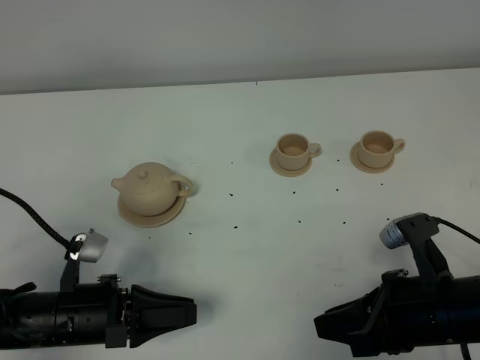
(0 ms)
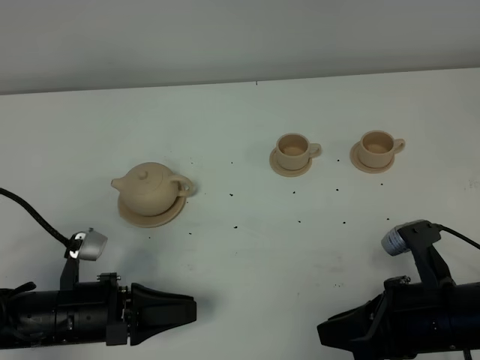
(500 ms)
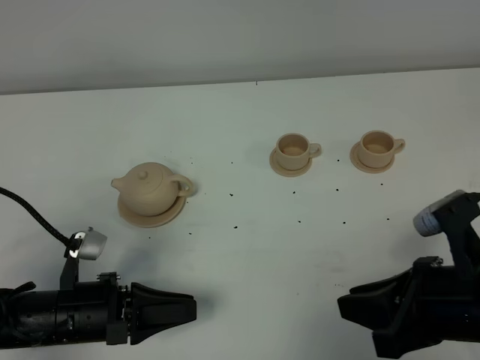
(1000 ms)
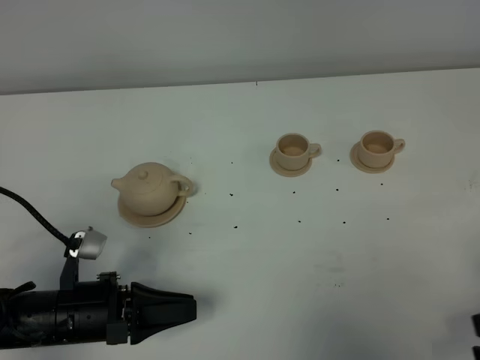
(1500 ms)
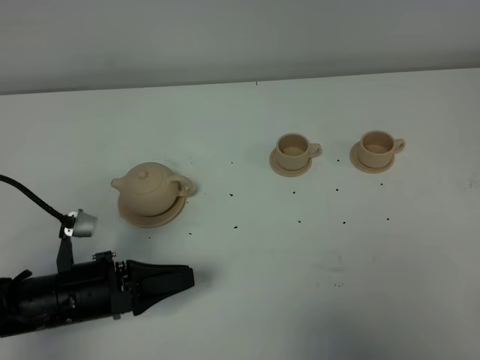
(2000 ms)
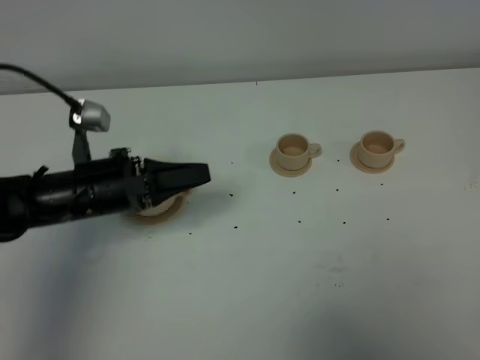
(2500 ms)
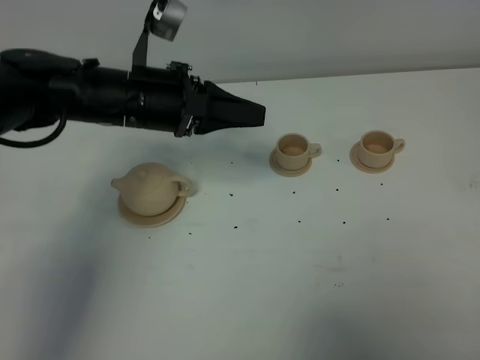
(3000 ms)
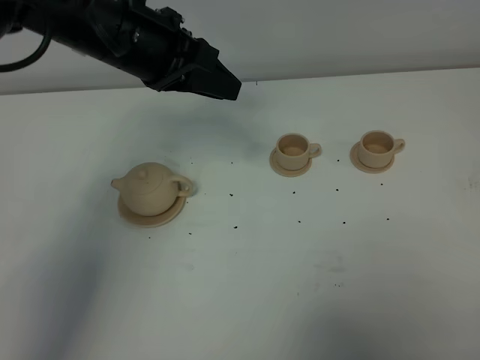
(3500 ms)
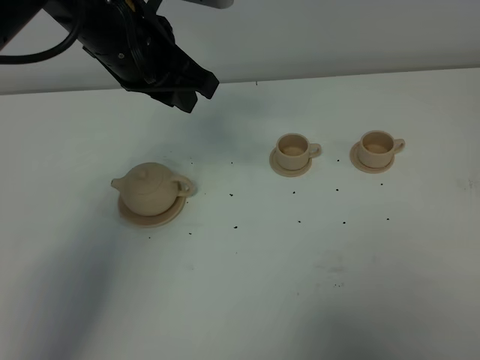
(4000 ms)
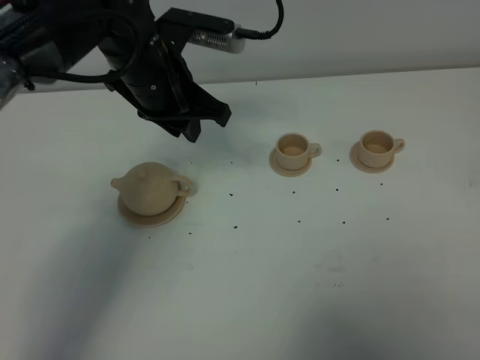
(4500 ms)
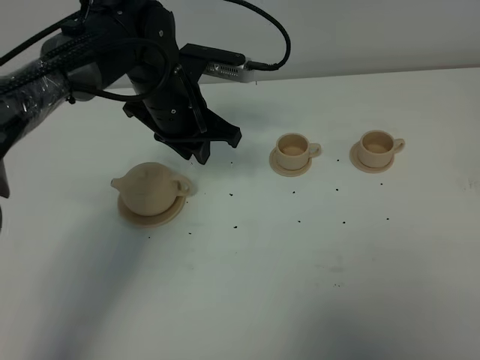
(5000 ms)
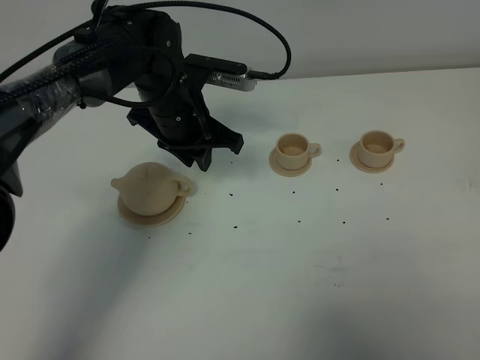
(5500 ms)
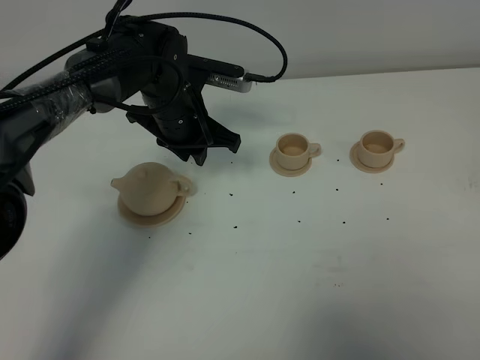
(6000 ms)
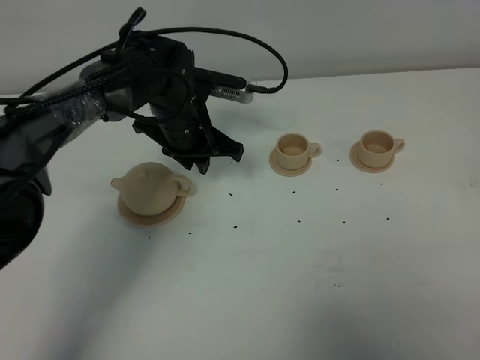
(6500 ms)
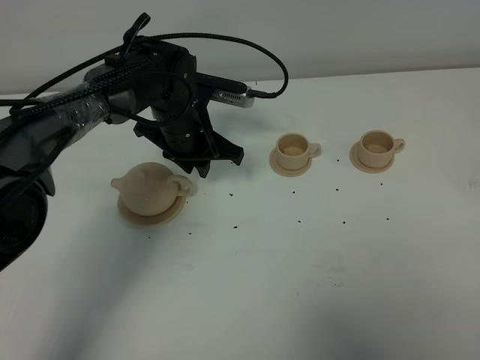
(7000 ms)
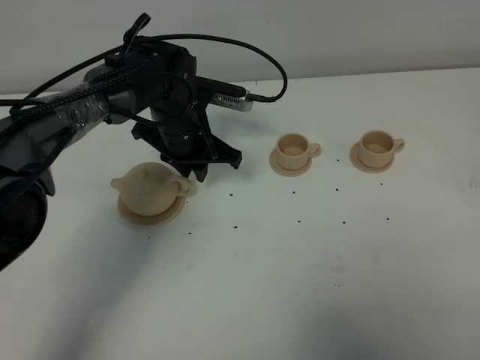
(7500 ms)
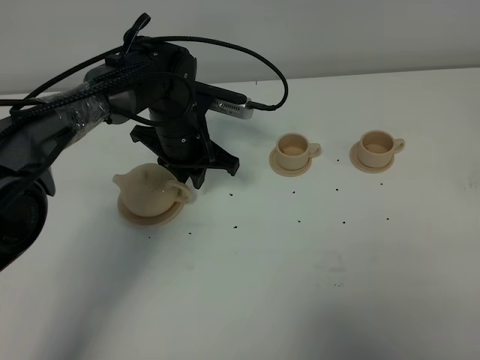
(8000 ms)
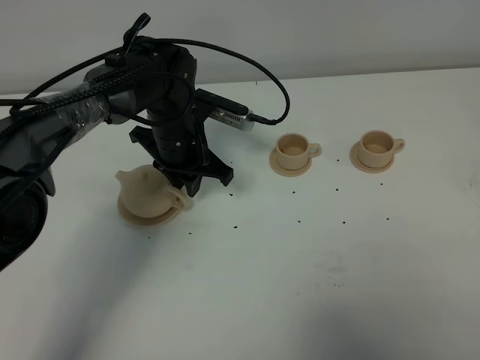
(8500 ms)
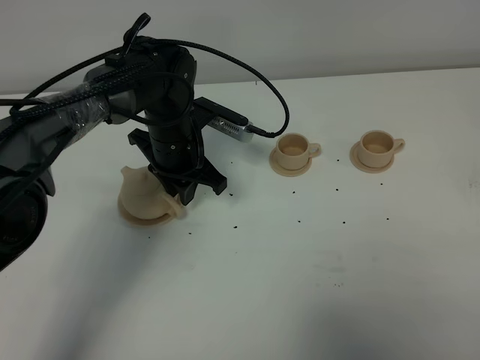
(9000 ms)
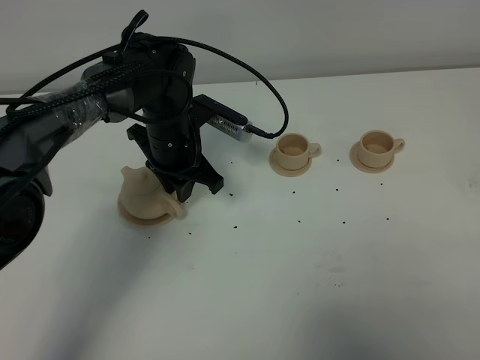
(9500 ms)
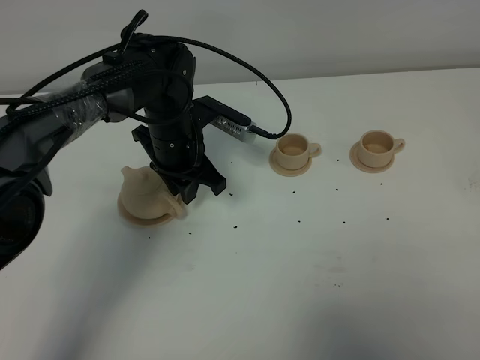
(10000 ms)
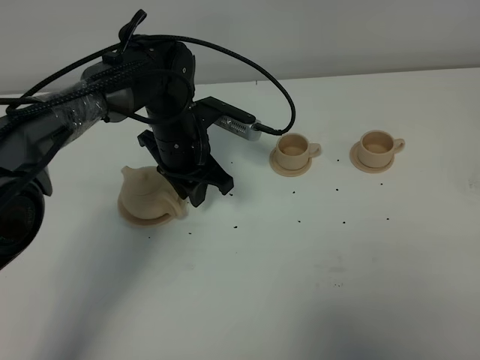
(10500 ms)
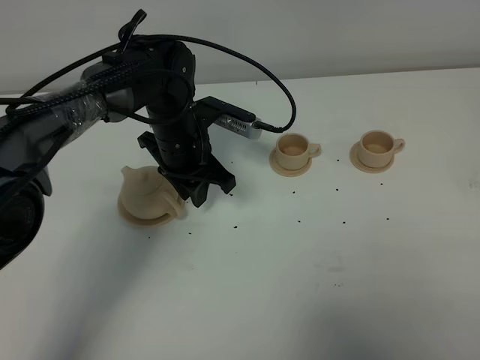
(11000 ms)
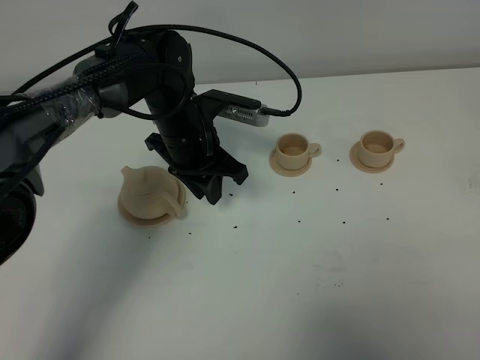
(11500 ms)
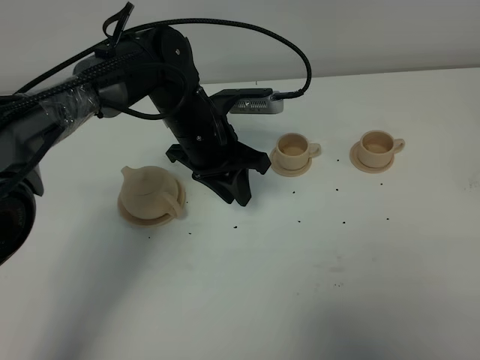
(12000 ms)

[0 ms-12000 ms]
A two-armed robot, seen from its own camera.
Task of the whole recording: grasp the brown teapot and pour the tea into the two brown teacups one by one, put the brown teapot back in its original place.
0 ms to 2000 ms: The right gripper shifts approximately 20 cm to the right, upward and backward.
2000 ms to 4000 ms: The left gripper is displaced upward, forward and to the right by approximately 30 cm; the right gripper heads backward, covering about 5 cm.
4000 ms to 6000 ms: The left gripper travels downward and forward by roughly 15 cm.
6000 ms to 8000 ms: The grippers move only a little.
8000 ms to 10000 ms: The grippers move only a little.

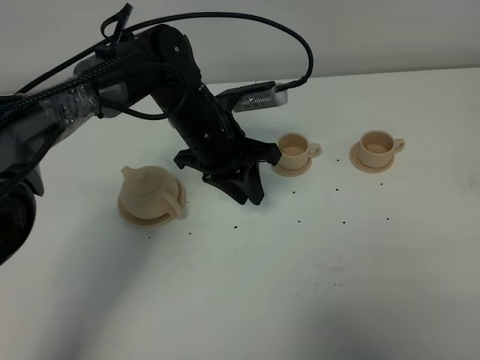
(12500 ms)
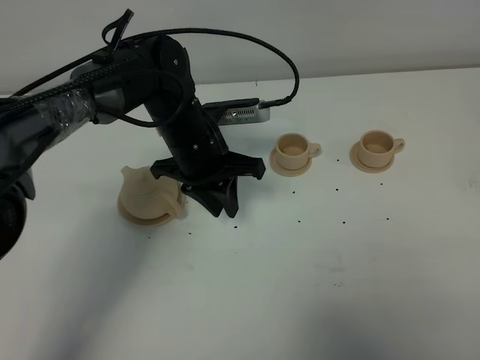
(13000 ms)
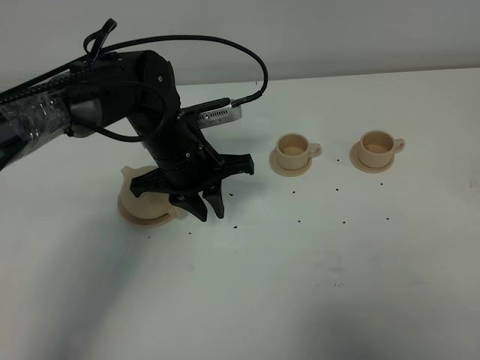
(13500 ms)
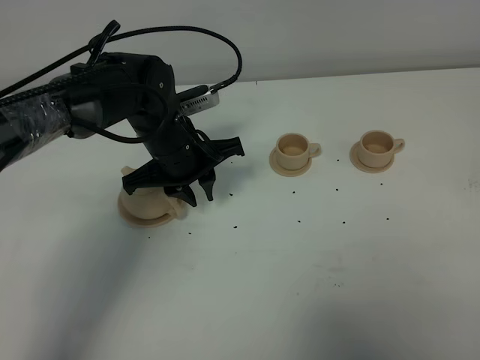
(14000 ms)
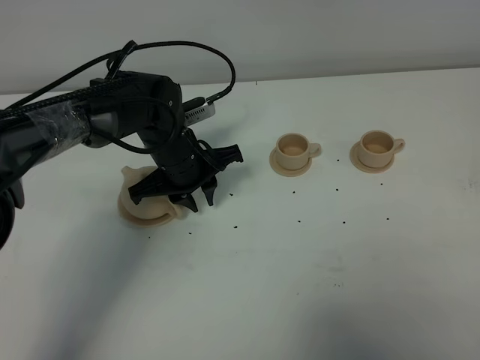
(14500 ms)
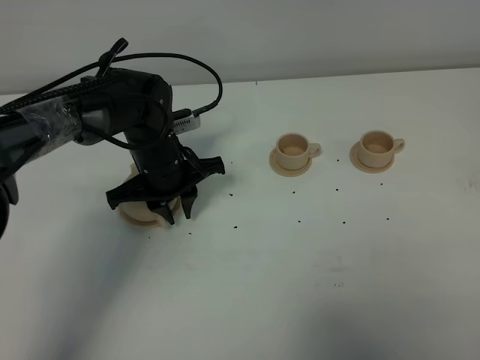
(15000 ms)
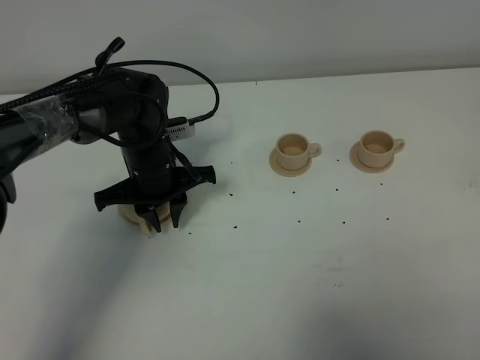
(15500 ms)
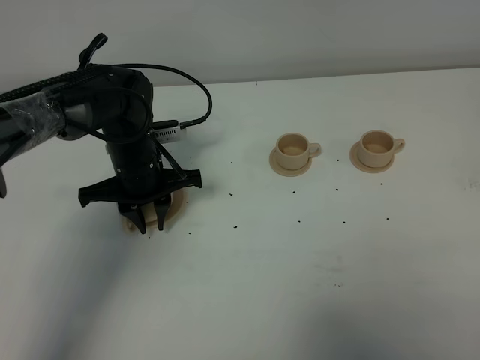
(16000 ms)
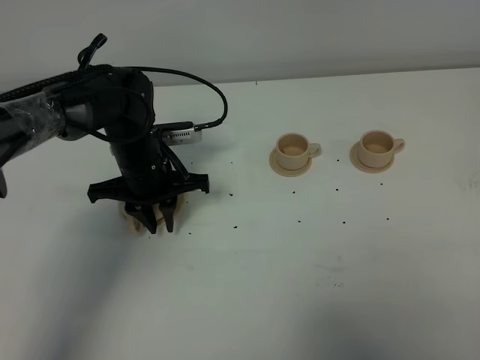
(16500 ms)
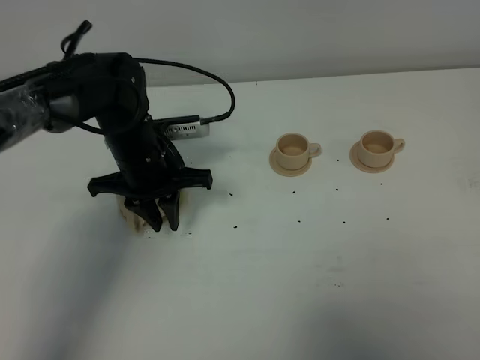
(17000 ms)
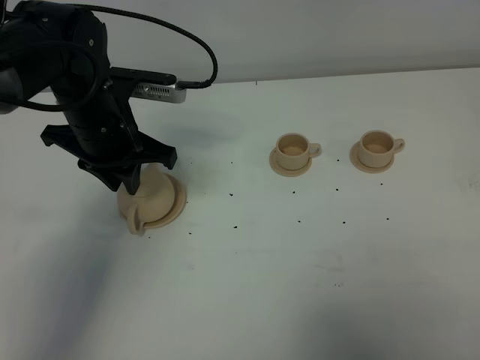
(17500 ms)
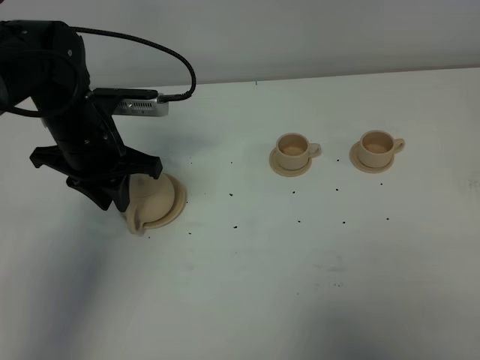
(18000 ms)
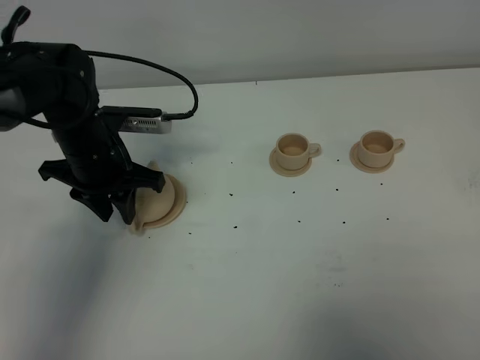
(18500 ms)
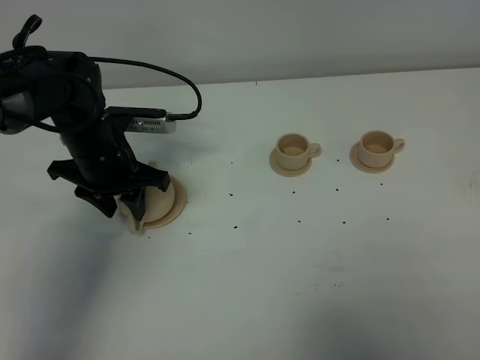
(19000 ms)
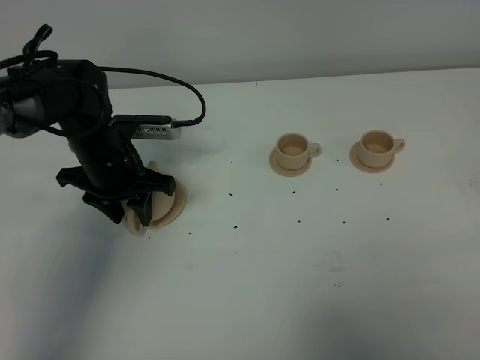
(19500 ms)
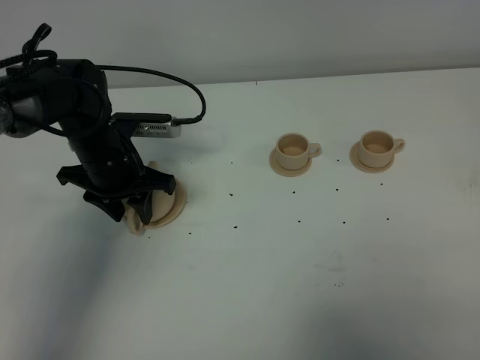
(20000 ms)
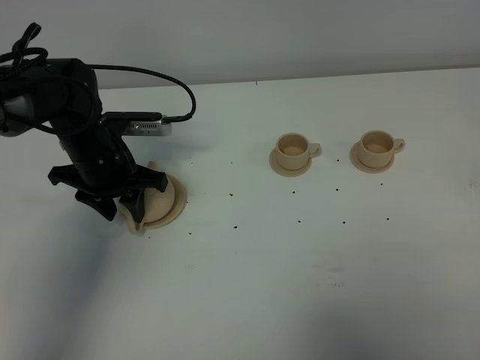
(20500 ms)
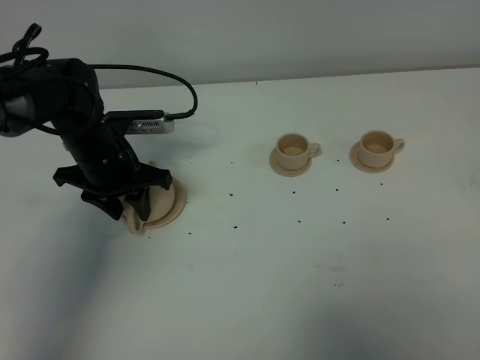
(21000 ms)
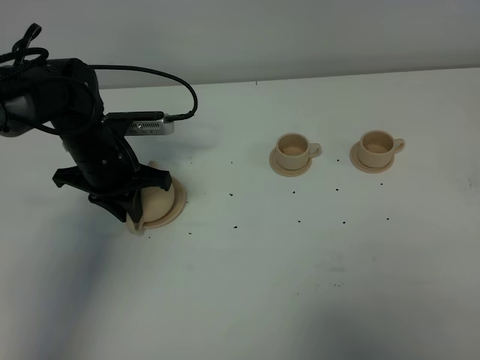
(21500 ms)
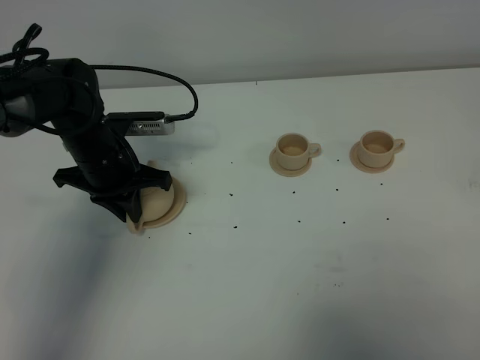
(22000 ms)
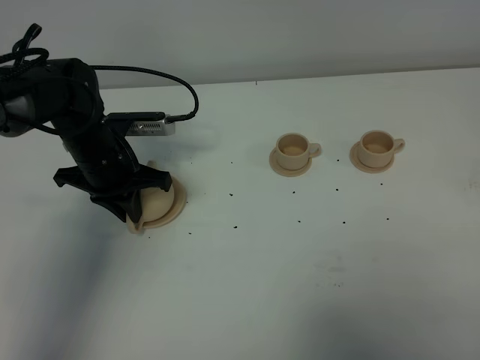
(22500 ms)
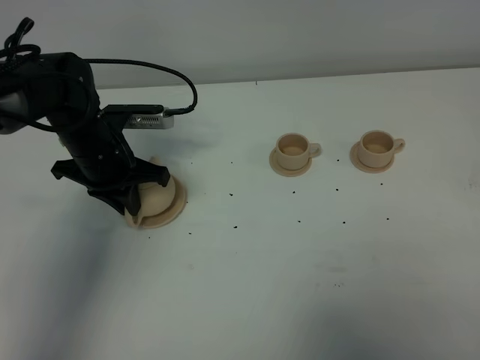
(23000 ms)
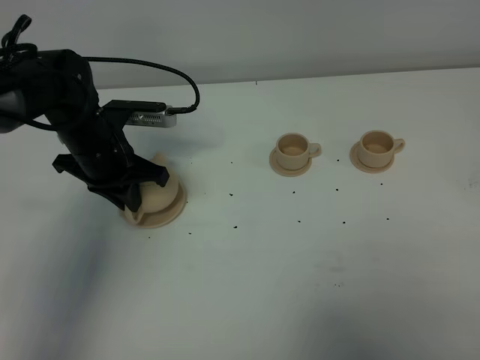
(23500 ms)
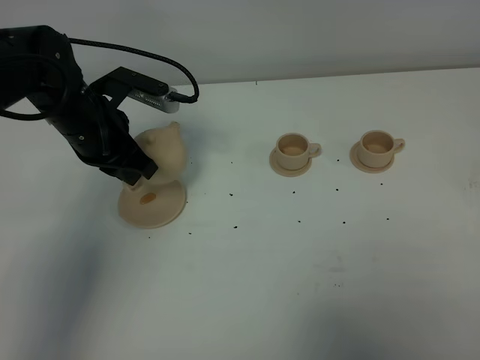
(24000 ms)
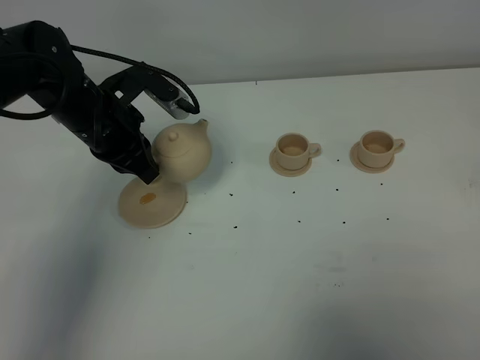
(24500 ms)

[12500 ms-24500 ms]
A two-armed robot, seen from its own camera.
Task of the whole recording: grasp the brown teapot and pour the tea into the two brown teacups one by one, put the brown teapot back in its original place.
Step, 12500 ms to 23000 ms: Pick up the teapot with the left gripper.
12500 ms to 14500 ms: The left gripper ends up approximately 5 cm from where it was.
16500 ms to 18500 ms: The left gripper opens its fingers.
18500 ms to 20500 ms: There are only small adjustments of the grippers.
20500 ms to 22500 ms: The left gripper closes its fingers.
22500 ms to 24500 ms: The left gripper travels upward by some 5 cm.

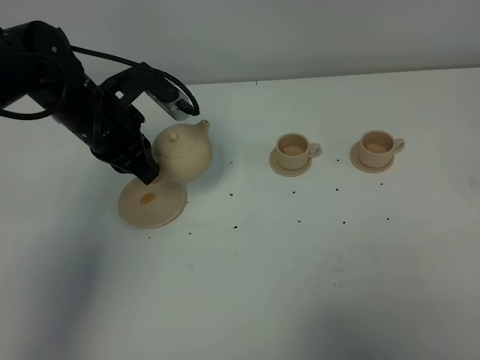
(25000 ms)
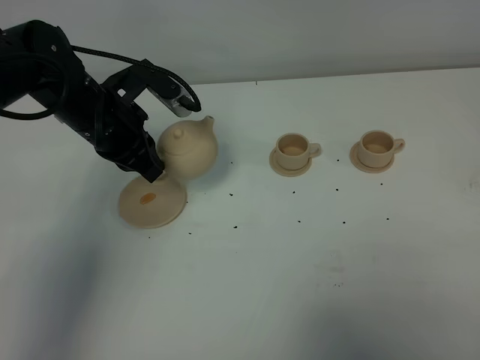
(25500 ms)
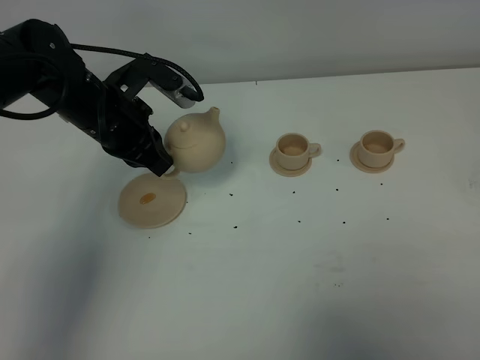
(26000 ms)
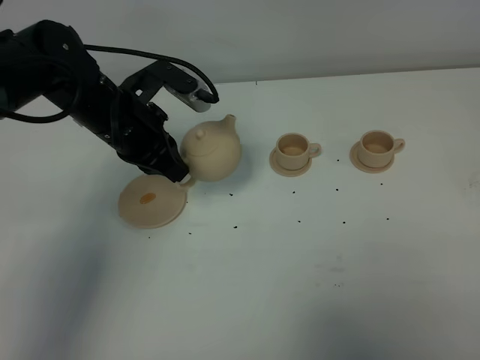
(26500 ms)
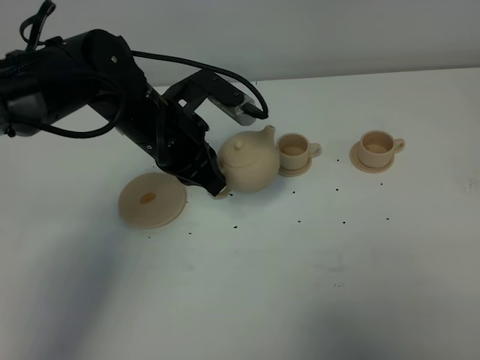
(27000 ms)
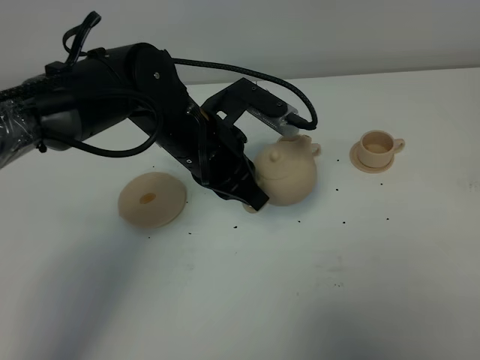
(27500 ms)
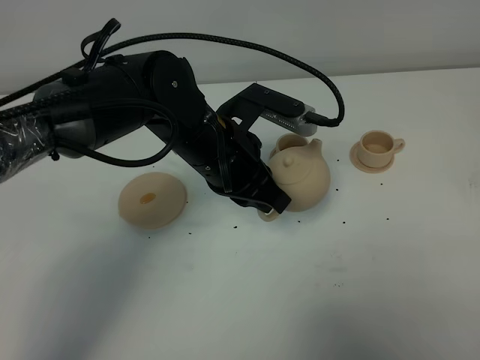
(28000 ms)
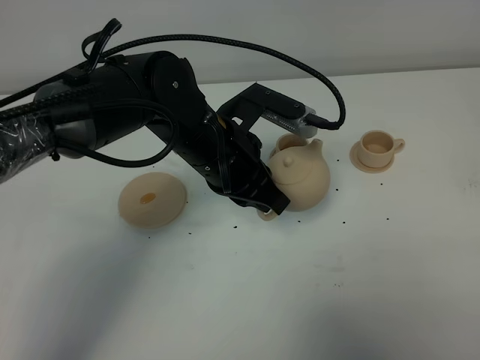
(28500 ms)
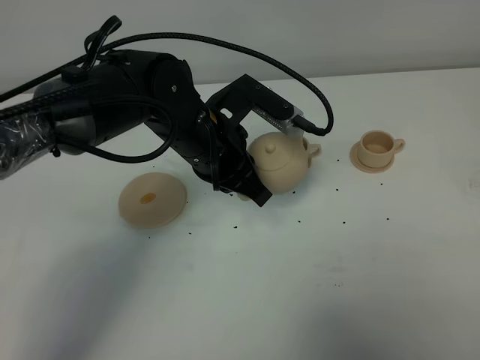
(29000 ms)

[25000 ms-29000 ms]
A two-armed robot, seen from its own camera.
Task of the whole recording: grasp the brown teapot and pour the tea into the two brown teacups one by one, put the brown teapot back in its original place.
25000 ms to 27000 ms: The left gripper is displaced to the right by about 10 cm.
27000 ms to 29000 ms: The left gripper goes approximately 5 cm to the right.
